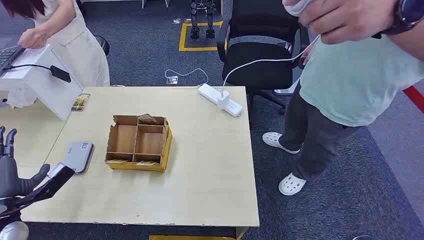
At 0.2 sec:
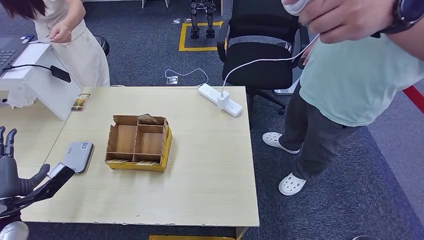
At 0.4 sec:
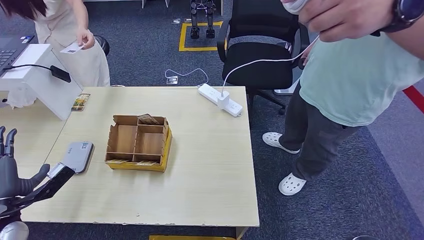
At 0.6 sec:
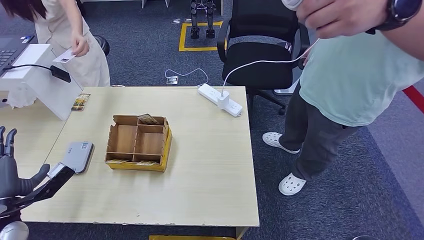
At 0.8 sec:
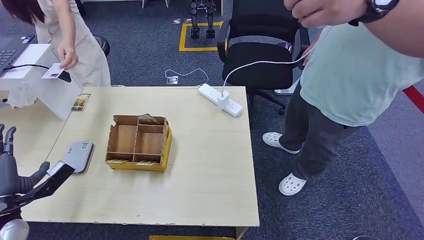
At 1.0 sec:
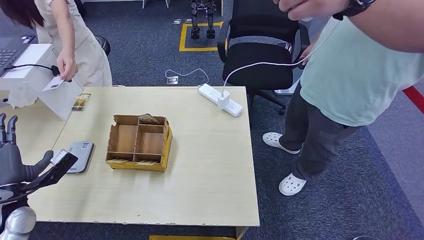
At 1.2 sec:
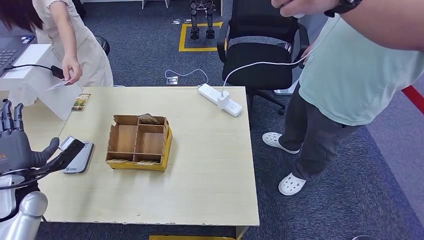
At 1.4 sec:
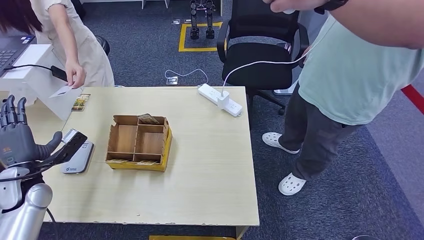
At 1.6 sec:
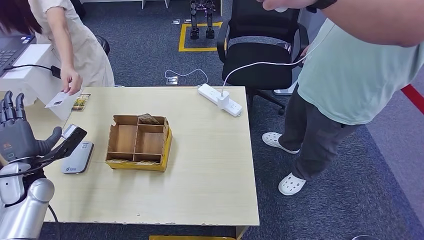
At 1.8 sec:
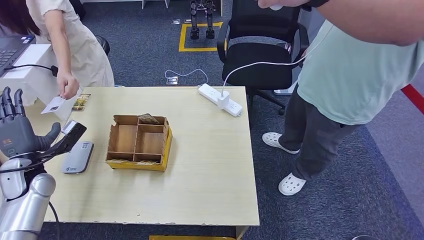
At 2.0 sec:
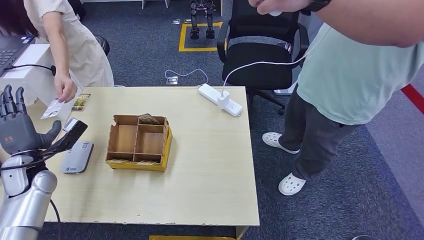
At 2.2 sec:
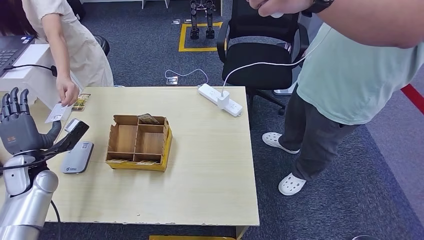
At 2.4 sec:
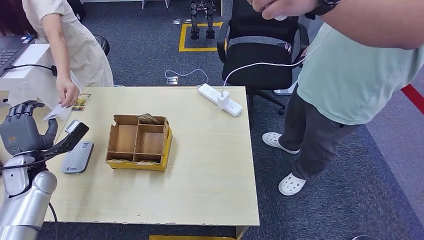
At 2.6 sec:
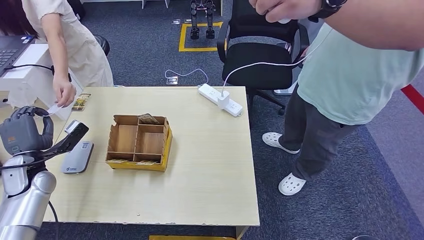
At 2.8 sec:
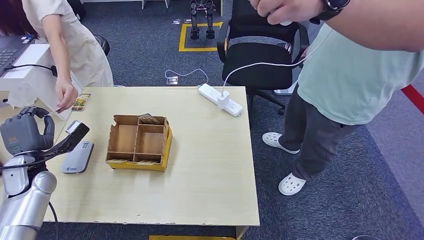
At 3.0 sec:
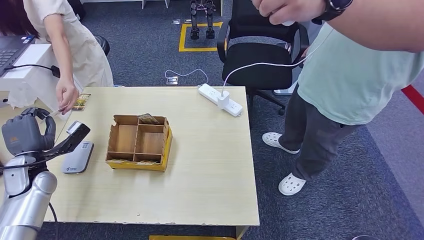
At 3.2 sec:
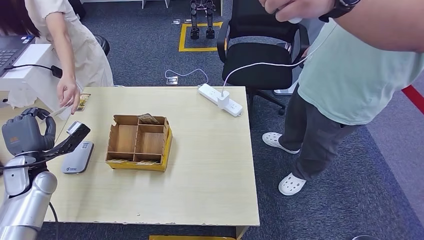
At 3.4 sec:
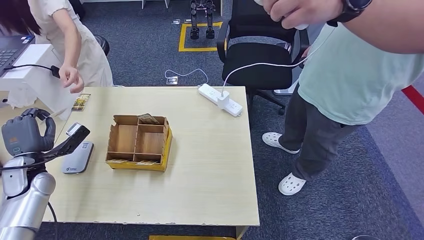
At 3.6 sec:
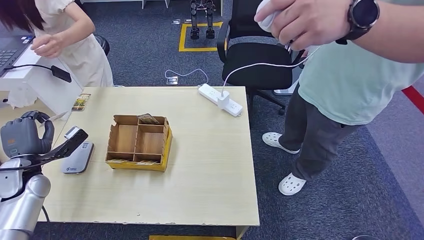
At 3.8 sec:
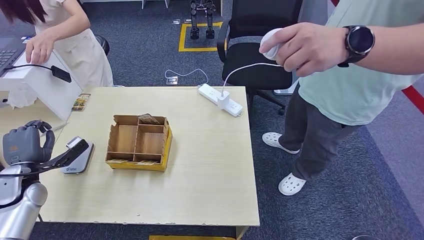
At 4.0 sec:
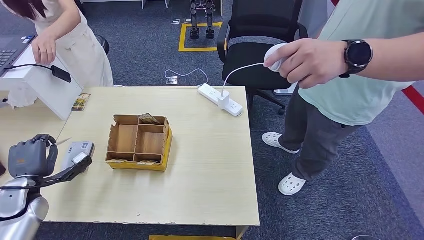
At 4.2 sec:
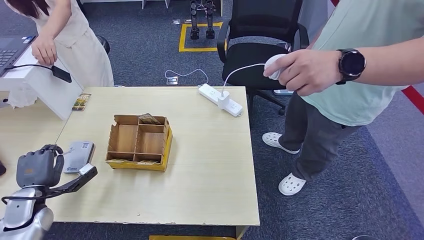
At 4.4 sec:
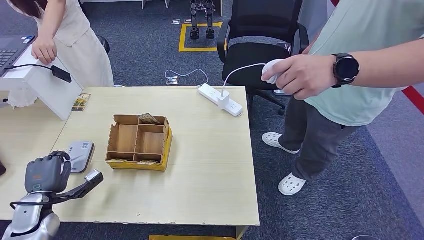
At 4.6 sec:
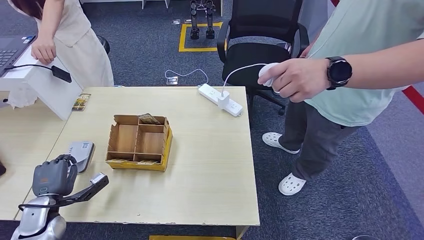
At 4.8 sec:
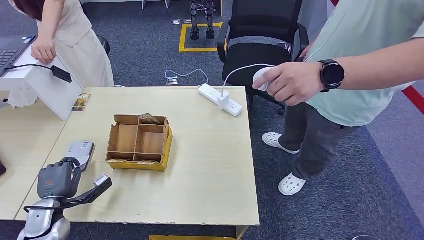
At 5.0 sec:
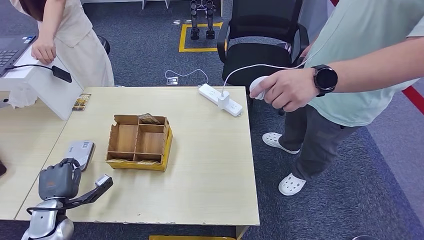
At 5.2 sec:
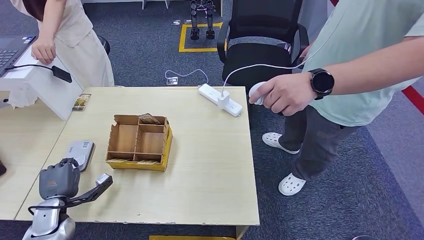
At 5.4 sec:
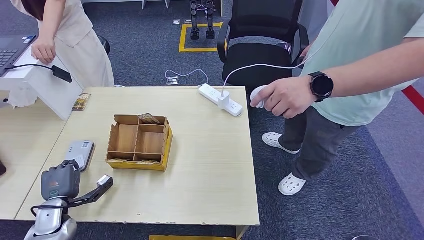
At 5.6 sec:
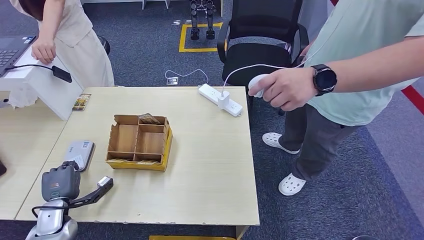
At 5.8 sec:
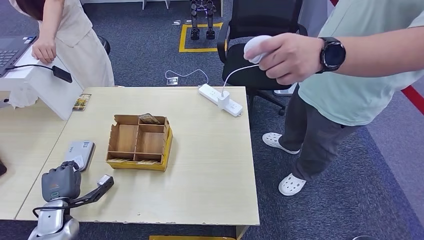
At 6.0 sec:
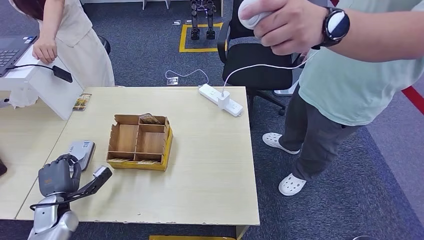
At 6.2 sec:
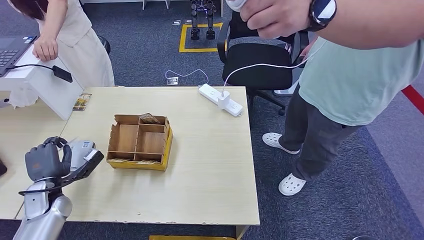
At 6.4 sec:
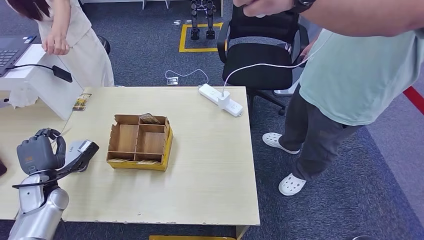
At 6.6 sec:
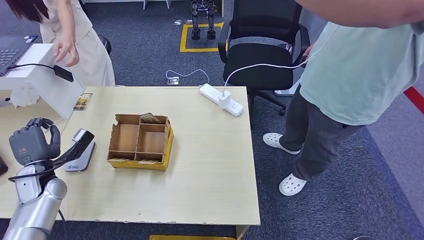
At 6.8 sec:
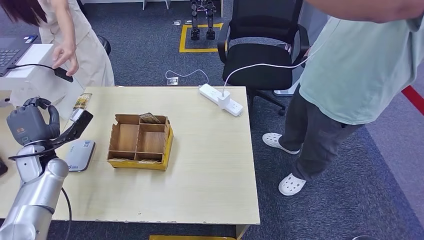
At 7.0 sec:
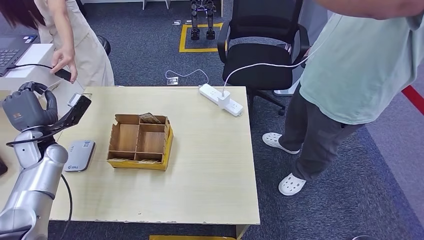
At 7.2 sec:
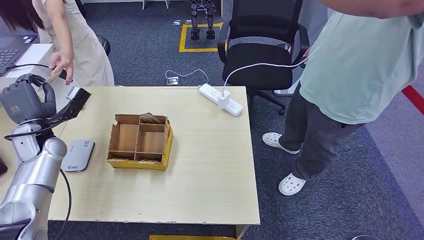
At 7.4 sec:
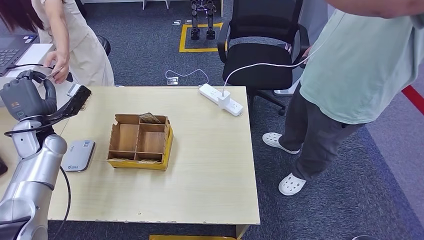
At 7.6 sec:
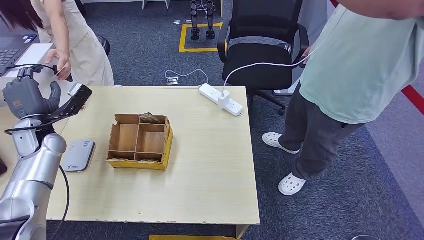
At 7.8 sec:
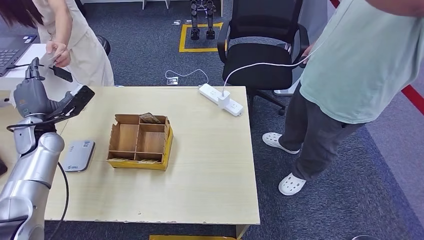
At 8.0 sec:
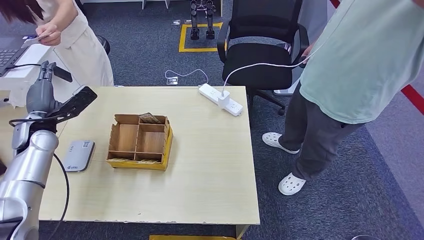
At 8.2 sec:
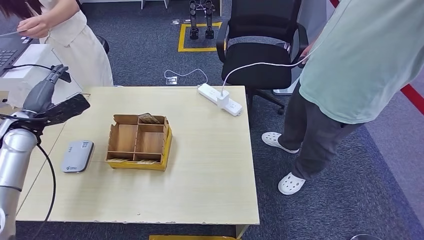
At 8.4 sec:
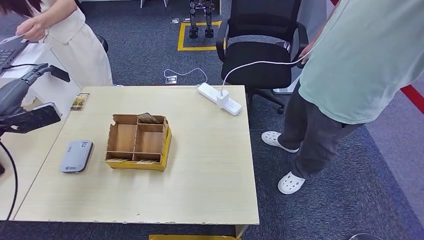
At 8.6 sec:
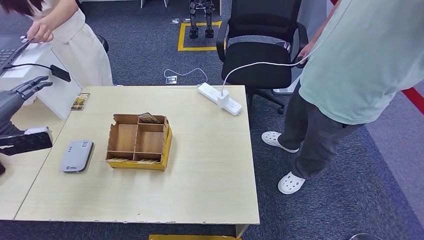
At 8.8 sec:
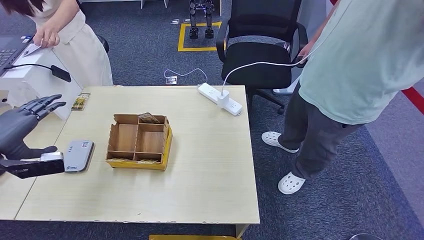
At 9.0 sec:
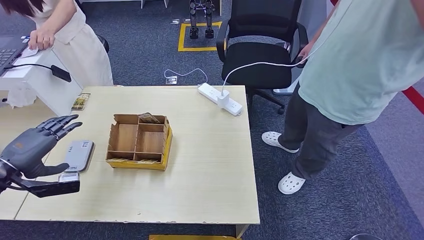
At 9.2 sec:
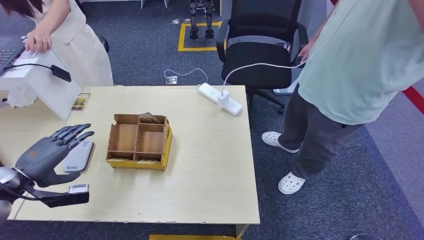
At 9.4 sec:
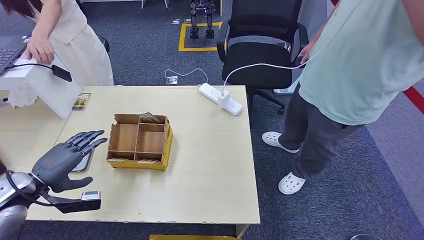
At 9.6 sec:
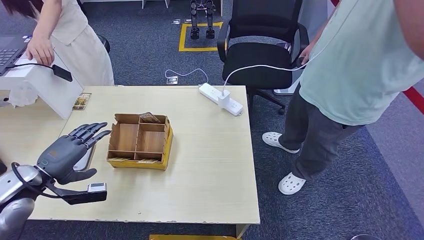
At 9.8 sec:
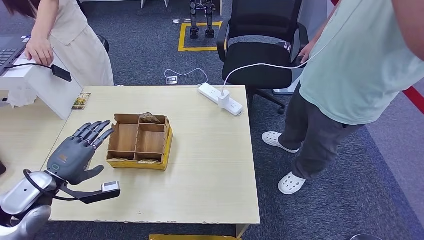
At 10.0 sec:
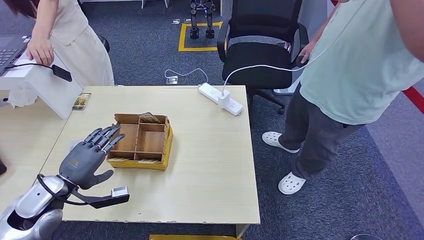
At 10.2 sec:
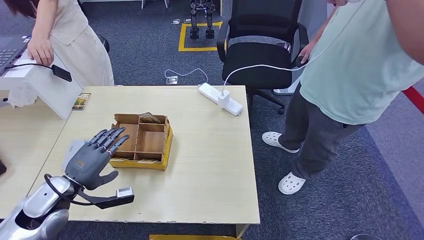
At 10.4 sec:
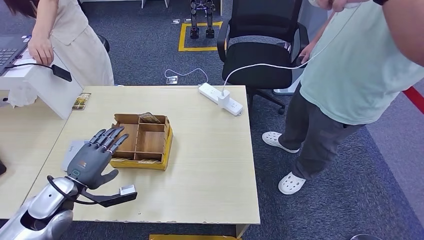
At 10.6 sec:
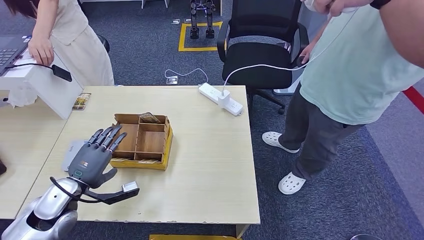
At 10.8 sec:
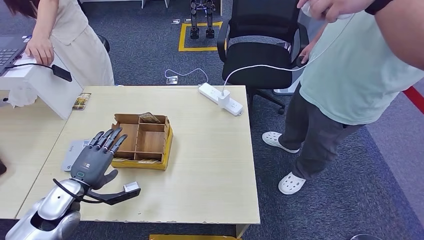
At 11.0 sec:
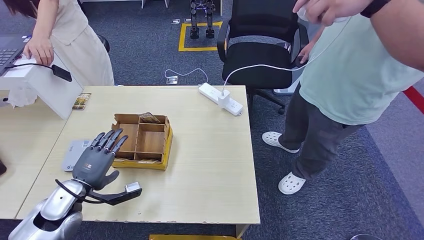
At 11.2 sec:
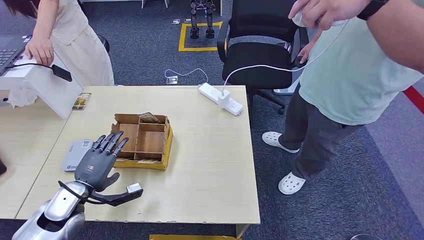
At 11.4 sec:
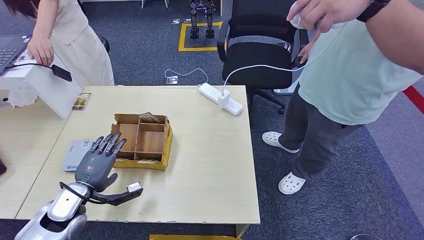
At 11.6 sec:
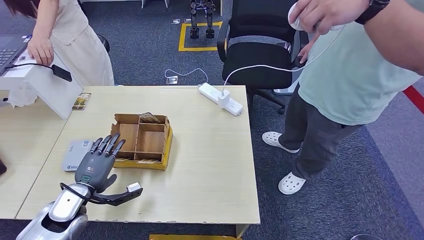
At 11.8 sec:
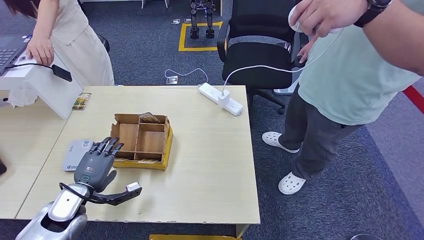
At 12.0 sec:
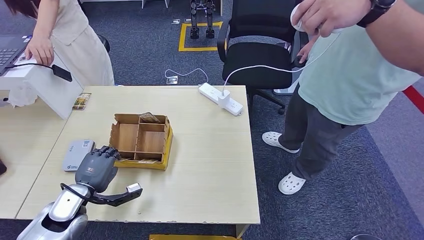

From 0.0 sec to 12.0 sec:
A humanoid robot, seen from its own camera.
Step, from 0.0 sec to 3.0 sec: Take the ID card from the person's hand.
Step, from 3.2 sec to 6.0 sec: Place the ID card on the card reader.
Step, from 6.2 sec to 8.0 sec: Hand the ID card to the person.
From 1.6 sec to 3.0 sec: The hands stay close to where they were, moving slightly.
From 4.4 sec to 6.0 sec: There are only small adjustments of the hands.
From 7.6 sec to 9.0 sec: The left hand travels backward by approximately 15 cm.
From 9.0 sec to 10.4 sec: The left hand goes about 15 cm to the right and downward.
From 10.4 sec to 12.0 sec: The left hand ends up some 5 cm from where it was.

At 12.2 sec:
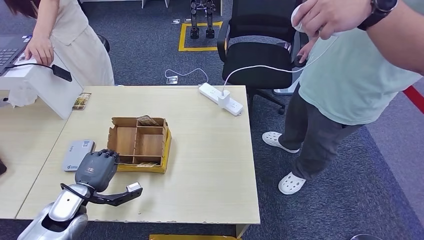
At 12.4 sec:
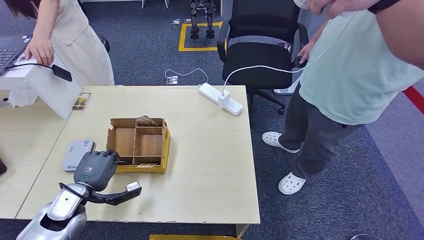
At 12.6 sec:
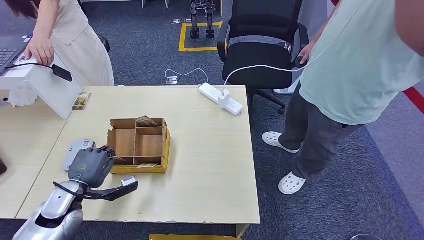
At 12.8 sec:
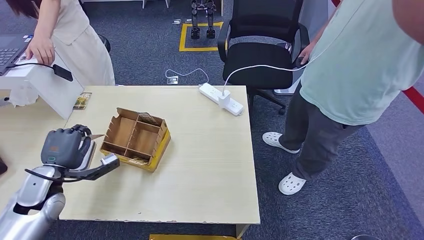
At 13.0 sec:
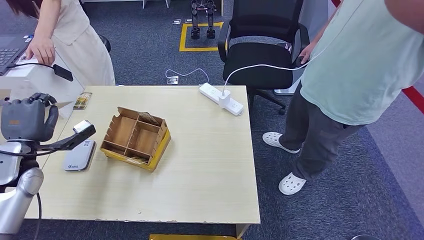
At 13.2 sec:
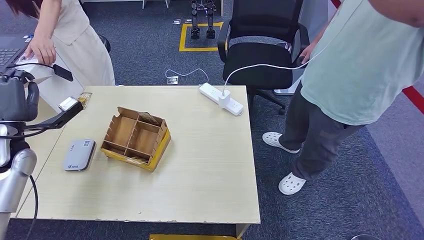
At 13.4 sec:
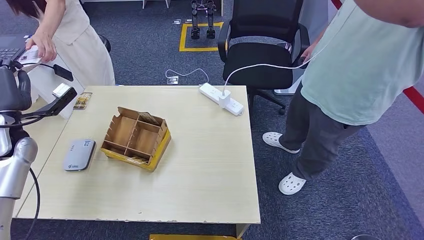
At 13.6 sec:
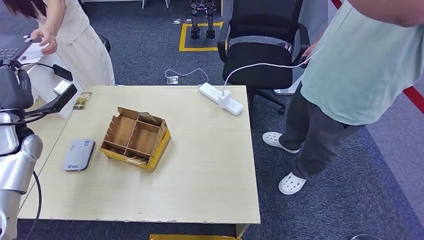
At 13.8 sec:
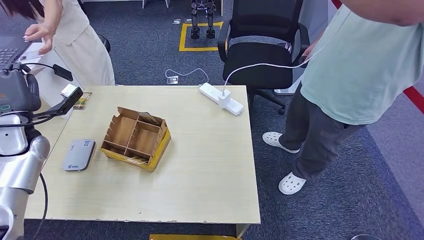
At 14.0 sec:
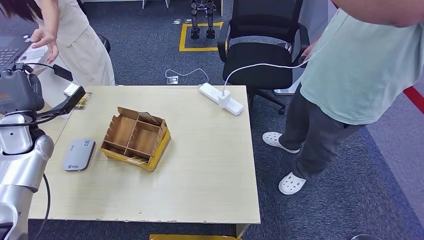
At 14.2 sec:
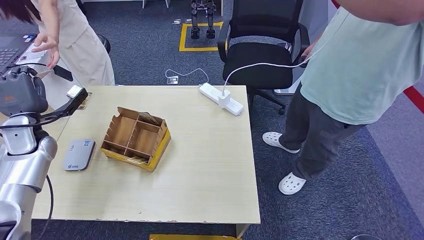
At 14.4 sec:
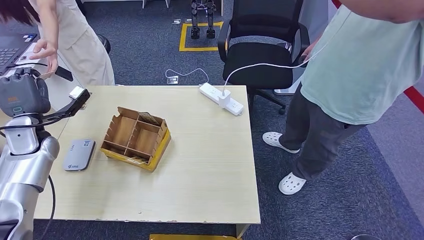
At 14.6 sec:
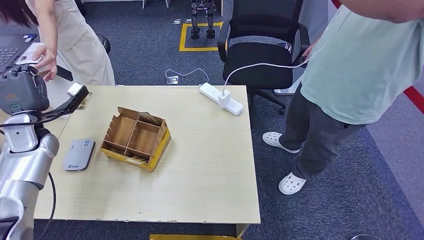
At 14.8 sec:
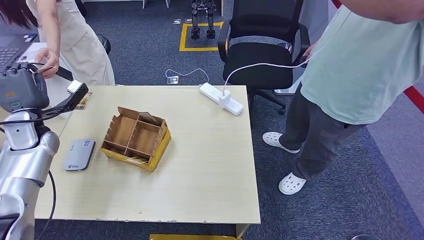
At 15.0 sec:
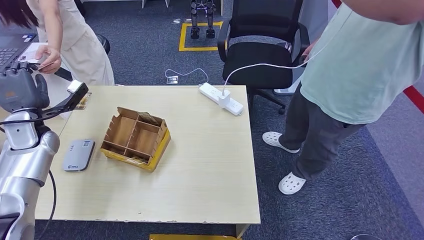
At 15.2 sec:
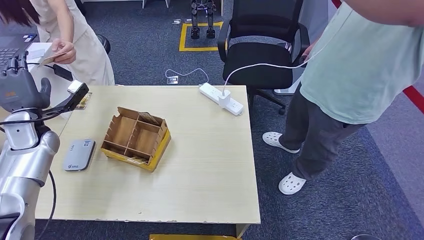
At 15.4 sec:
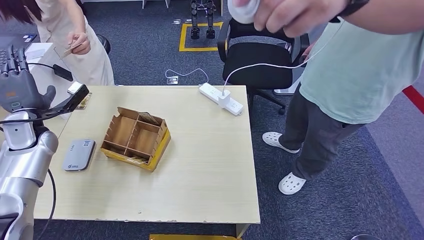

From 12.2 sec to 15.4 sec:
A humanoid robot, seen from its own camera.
Step, from 12.8 sec to 15.4 sec: Hand the room key to the person.
From 13.8 sec to 15.4 sec: There are only small adjustments of the hands.
